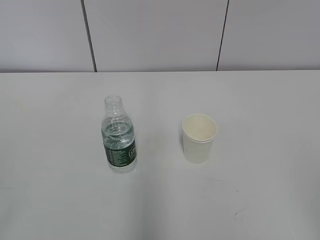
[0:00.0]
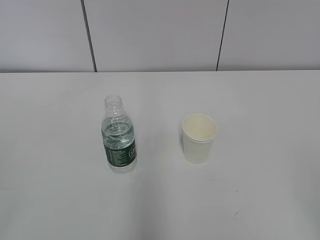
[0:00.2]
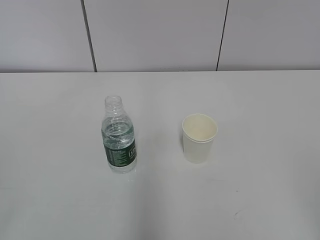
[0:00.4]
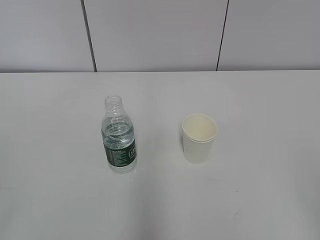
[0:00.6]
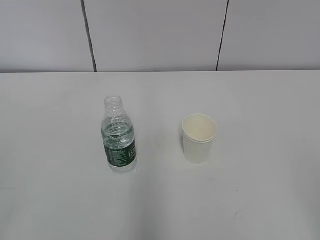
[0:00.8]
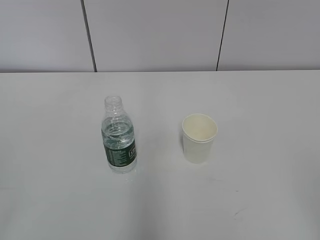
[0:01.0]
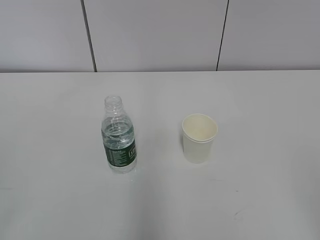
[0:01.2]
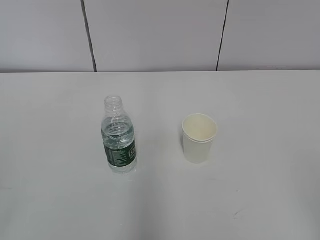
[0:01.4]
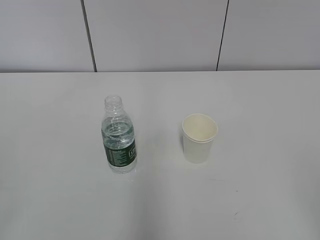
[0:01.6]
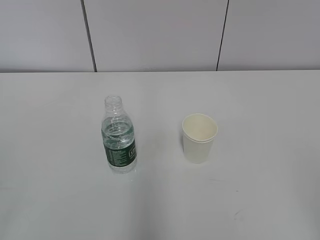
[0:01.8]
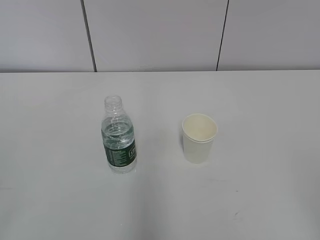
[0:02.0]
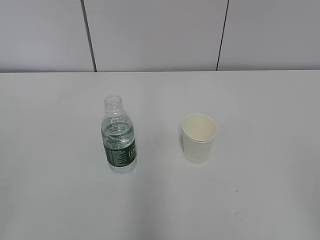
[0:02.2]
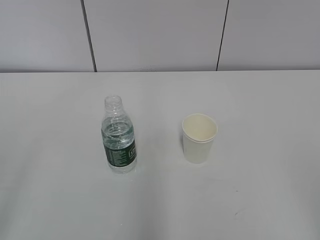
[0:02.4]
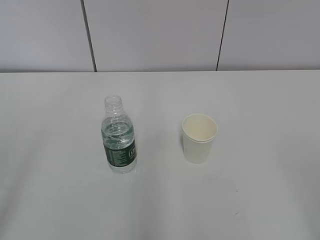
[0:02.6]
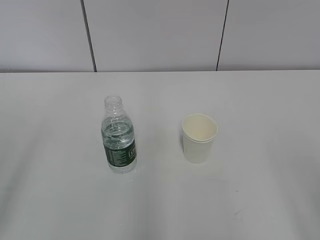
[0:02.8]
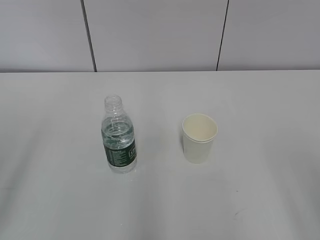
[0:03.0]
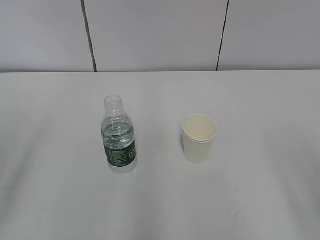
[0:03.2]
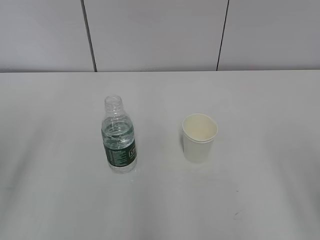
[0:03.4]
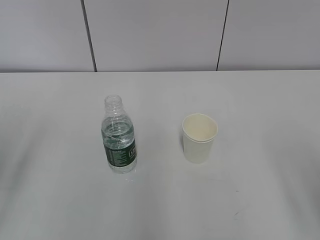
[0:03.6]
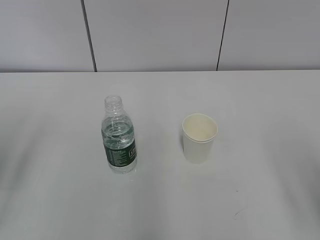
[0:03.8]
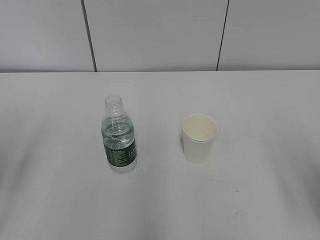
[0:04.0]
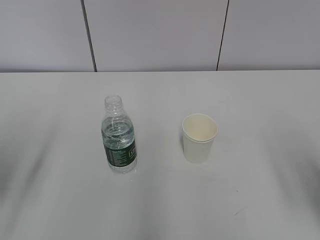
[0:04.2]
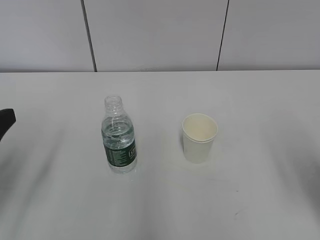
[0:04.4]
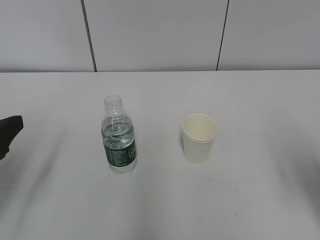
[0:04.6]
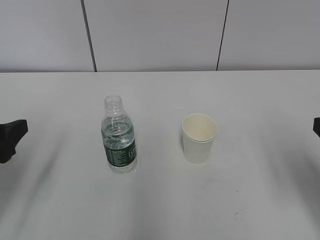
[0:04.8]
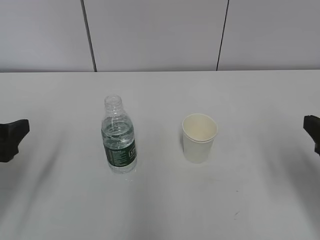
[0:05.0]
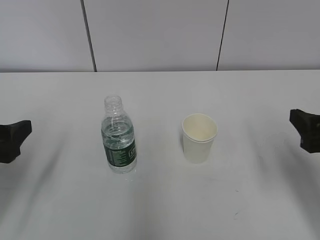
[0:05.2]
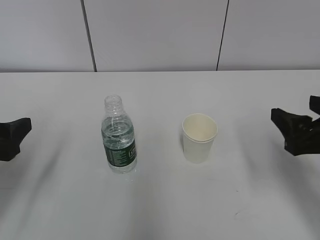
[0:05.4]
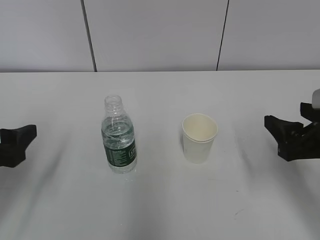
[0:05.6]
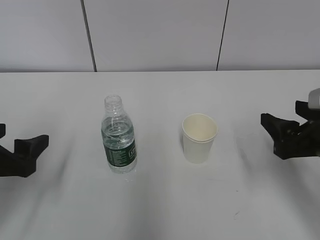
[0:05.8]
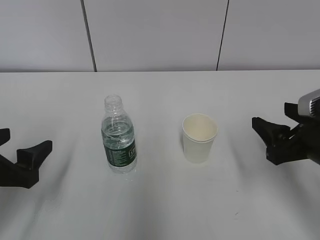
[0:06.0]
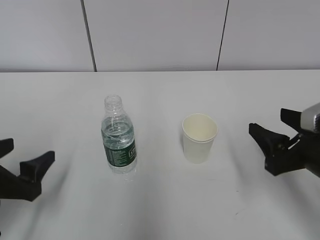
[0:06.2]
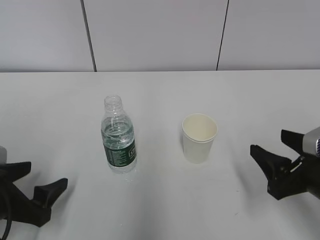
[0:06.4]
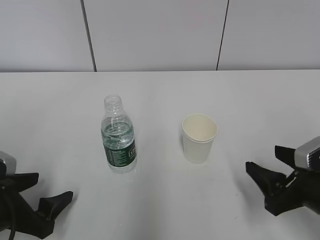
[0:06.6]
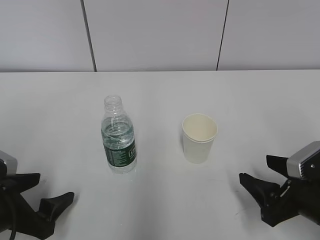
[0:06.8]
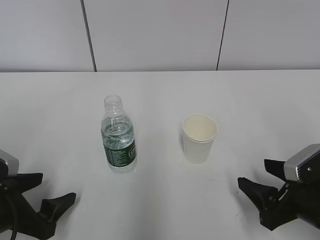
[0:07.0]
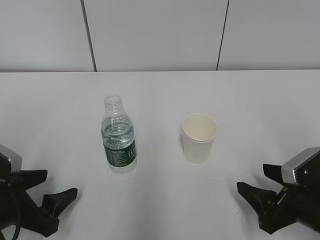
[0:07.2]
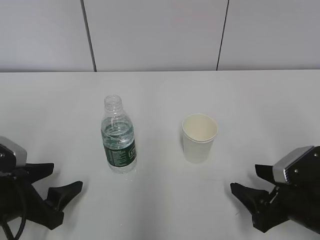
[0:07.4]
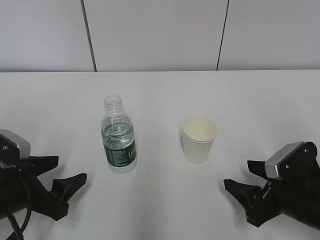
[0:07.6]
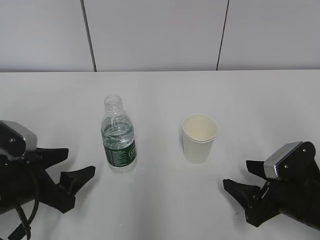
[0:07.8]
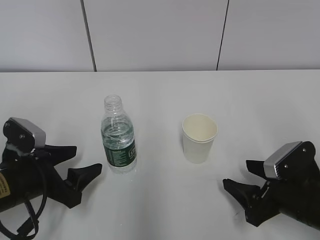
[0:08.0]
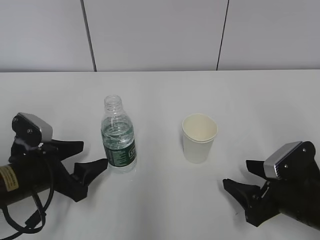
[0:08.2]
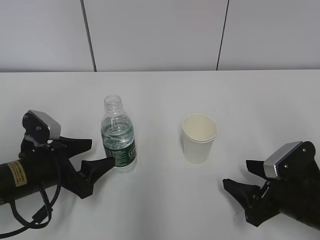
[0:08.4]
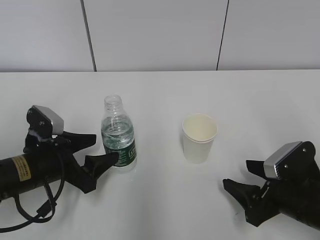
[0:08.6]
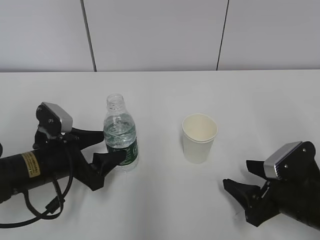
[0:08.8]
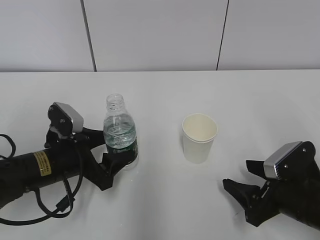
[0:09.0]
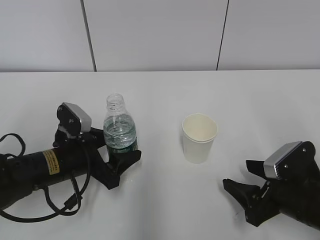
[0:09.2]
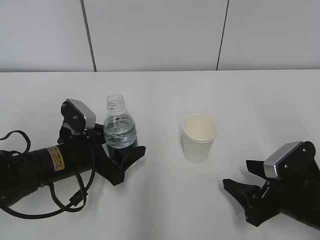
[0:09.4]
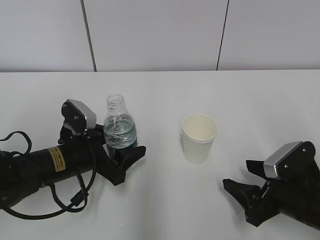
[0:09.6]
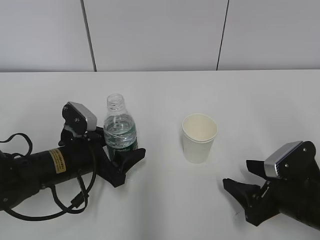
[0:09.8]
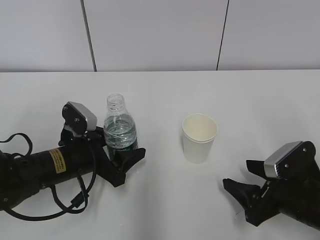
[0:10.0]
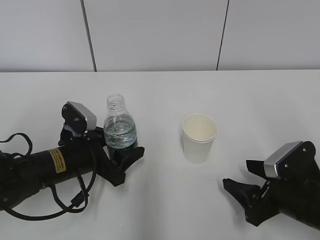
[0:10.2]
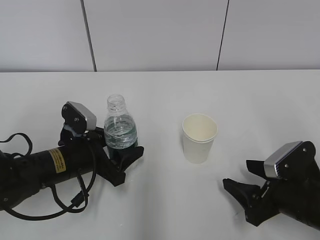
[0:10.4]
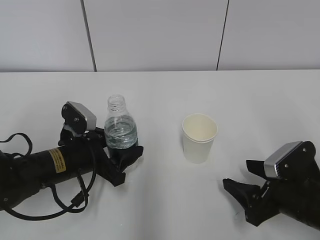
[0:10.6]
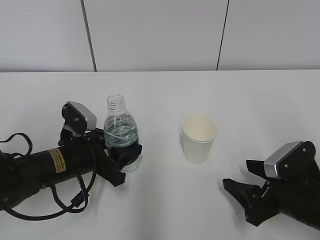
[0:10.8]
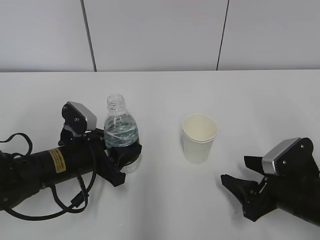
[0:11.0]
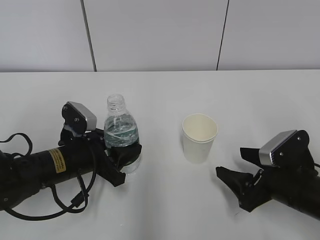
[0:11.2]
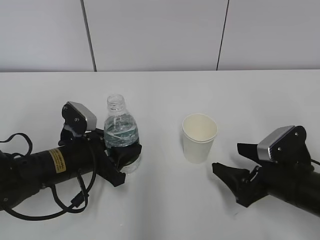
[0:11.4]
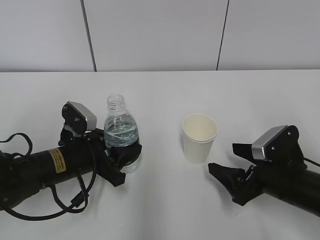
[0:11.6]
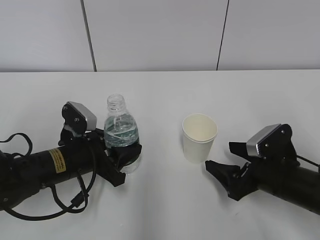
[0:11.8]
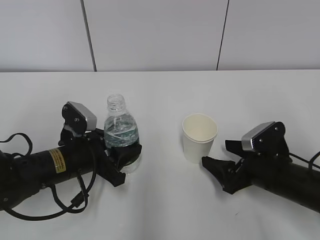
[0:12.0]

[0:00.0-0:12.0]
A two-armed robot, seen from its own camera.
Step, 0:00.0 to 0:11.8: Grab the paper cup with the right hand.
0:03.0 to 0:04.4: The left gripper travels forward and downward by roughly 10 cm.
0:04.4 to 0:06.0: The left gripper moves downward, some 5 cm; the right gripper shifts about 10 cm forward and downward, and closes.
0:06.0 to 0:07.6: The left gripper shifts roughly 5 cm downward. Meanwhile the right gripper shifts approximately 10 cm downward.
0:07.6 to 0:09.0: The left gripper moves forward and to the right, some 10 cm.
0:09.0 to 0:10.4: The grippers make only small movements.
0:10.4 to 0:12.0: The right gripper travels forward by roughly 5 cm, and opens up.

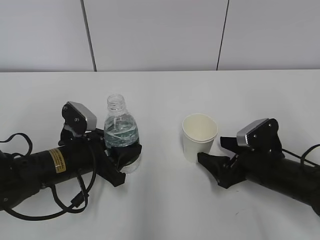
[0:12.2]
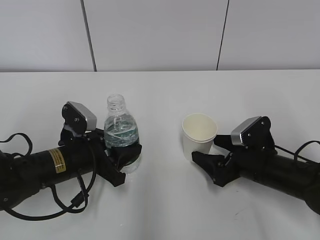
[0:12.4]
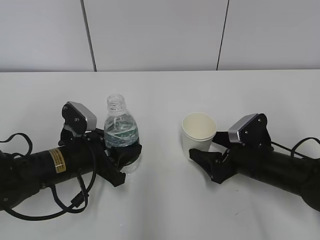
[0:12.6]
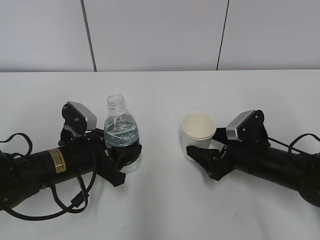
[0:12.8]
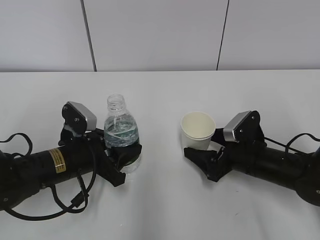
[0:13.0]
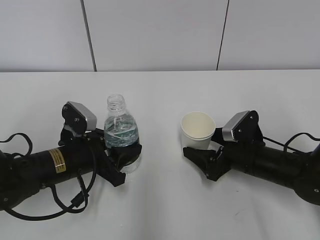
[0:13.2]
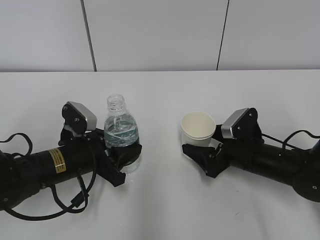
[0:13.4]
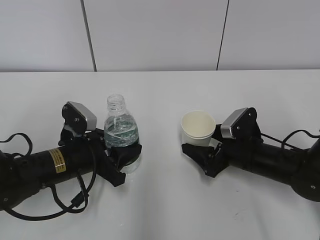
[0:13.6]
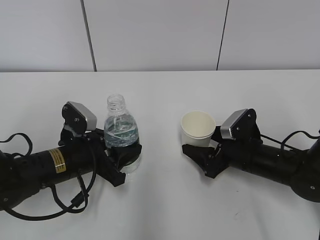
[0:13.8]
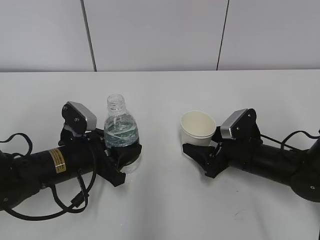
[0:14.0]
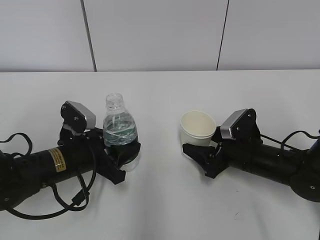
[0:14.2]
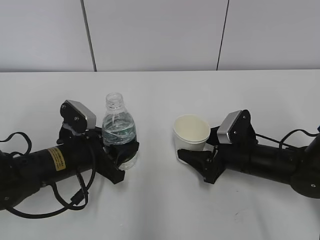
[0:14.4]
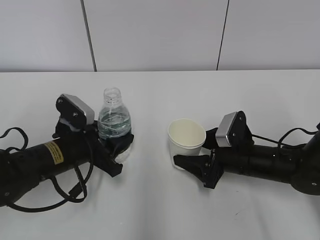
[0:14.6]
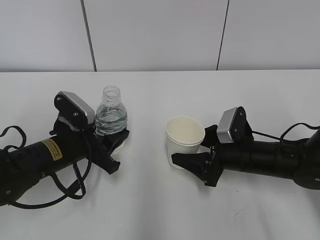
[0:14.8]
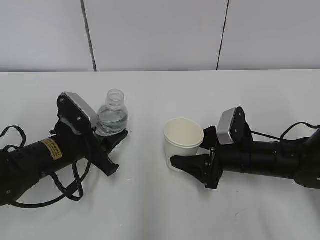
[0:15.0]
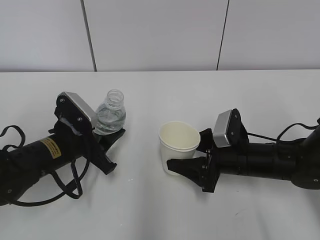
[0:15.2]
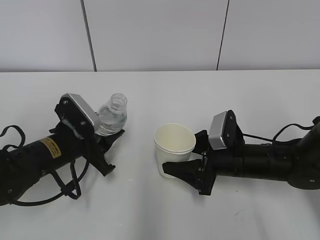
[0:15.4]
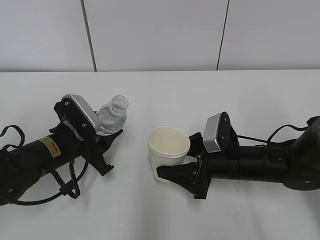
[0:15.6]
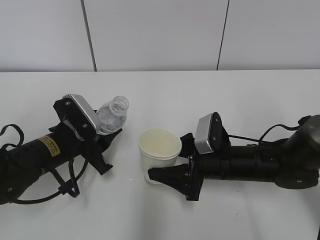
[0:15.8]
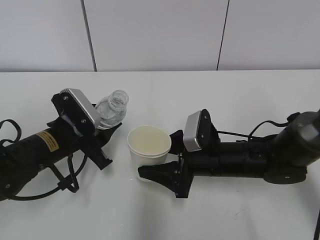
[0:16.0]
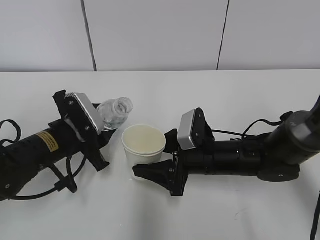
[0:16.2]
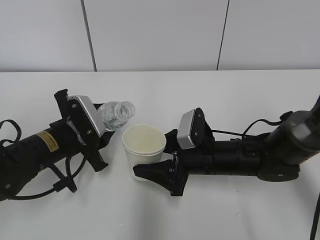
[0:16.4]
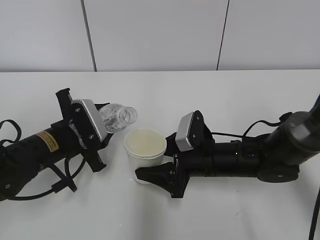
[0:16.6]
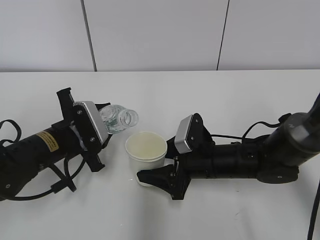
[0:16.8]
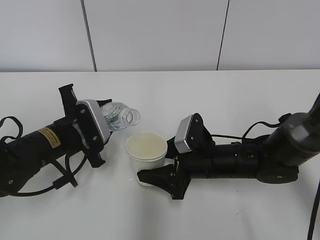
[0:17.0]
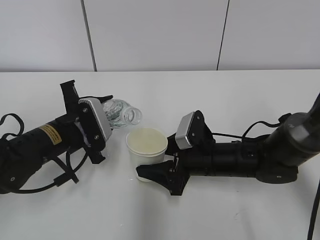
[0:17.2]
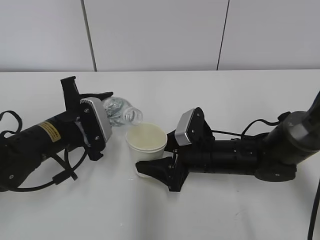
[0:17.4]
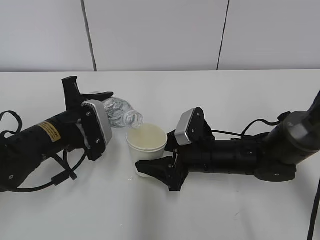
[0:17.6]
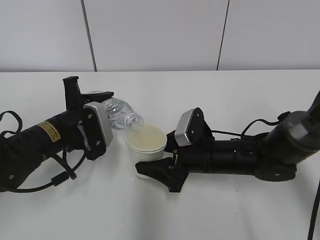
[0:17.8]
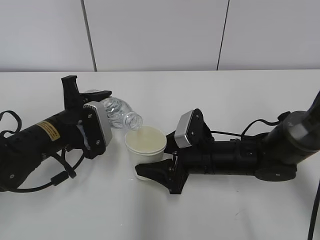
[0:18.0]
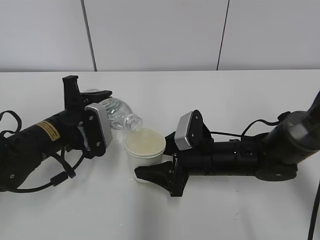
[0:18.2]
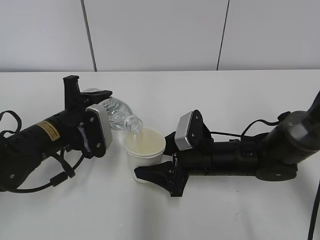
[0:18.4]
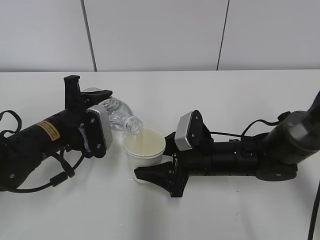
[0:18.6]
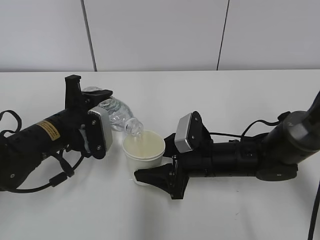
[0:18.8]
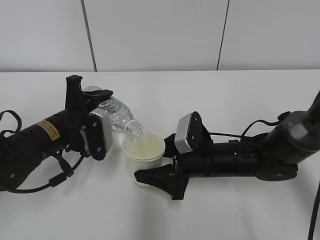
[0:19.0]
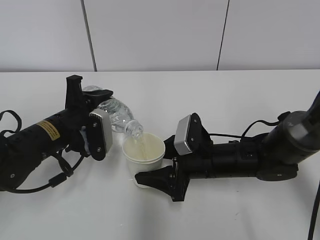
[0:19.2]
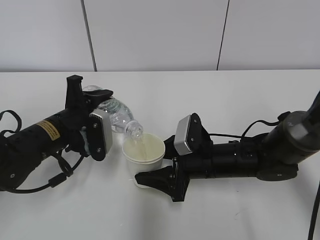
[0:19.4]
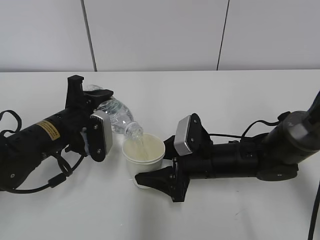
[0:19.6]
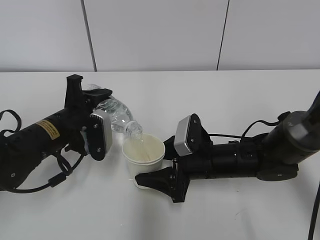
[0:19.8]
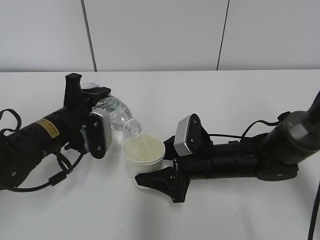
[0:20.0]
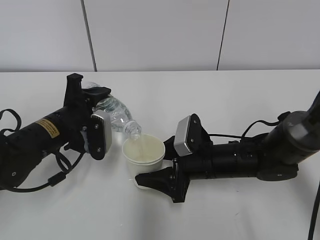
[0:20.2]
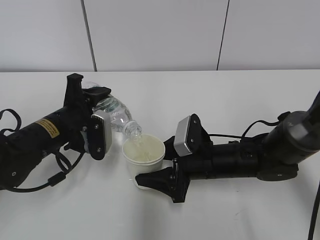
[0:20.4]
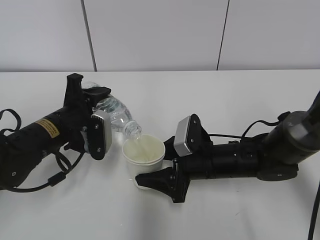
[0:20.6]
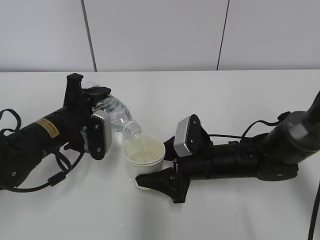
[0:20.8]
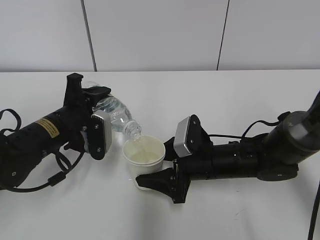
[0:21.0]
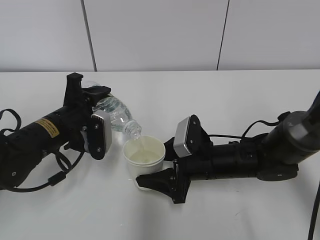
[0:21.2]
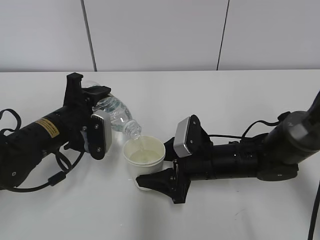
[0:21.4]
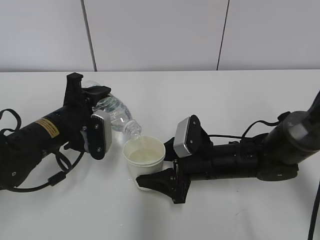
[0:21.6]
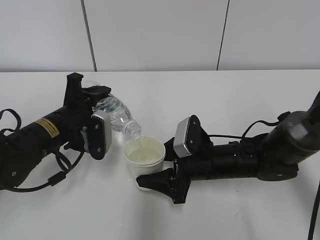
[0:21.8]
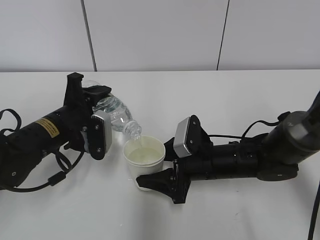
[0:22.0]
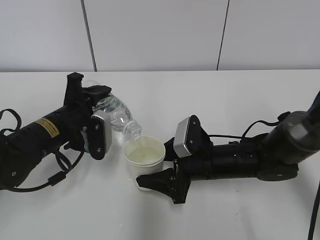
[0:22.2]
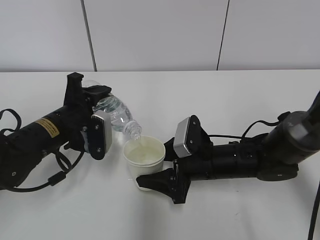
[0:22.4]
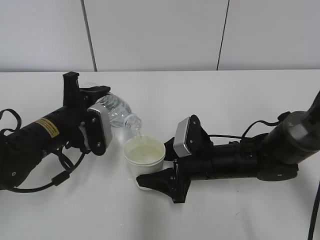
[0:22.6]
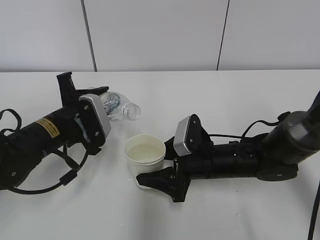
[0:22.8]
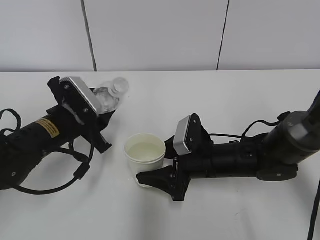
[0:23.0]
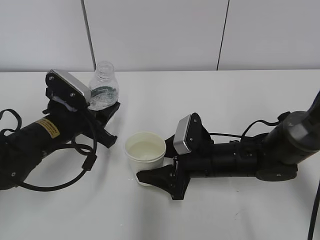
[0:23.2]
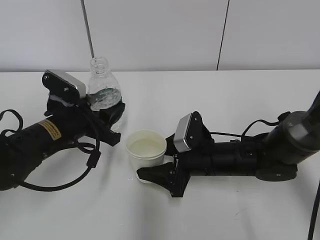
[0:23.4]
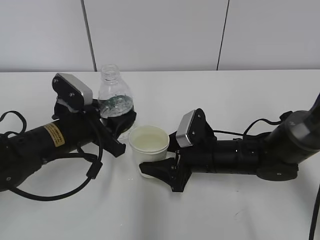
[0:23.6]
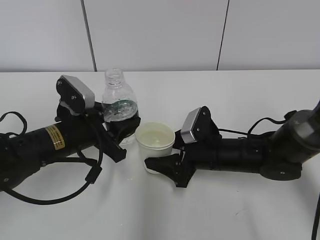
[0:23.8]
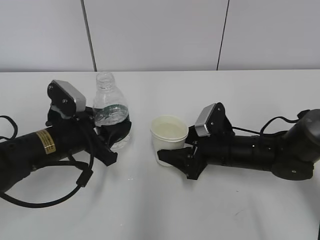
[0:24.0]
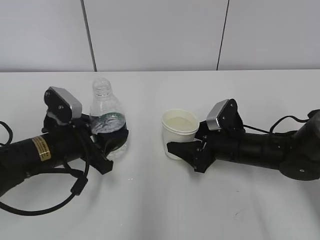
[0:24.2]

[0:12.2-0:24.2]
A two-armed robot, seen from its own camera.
Step, 0:12.2 to 0:15.0: Lift the paper cup with the right hand.
Step, 0:15.2 to 0:18.8: Fill water with the right hand.
Step, 0:15.2 to 0:18.8: Pour water with the left hand.
Step, 0:19.8 to 0:21.8: Place the paper cup with the right hand.
0:12.2 to 0:13.8: The right gripper closes up.
0:13.8 to 0:15.2: The right gripper closes.
0:15.2 to 0:16.6: The right gripper moves to the left, some 5 cm.
0:18.2 to 0:19.8: There are only small adjustments of the grippers.
0:19.8 to 0:21.2: Both grippers stay about where they are.
0:21.2 to 0:22.6: There are only small adjustments of the grippers.
0:22.6 to 0:24.2: The right gripper is displaced to the right by roughly 5 cm.
